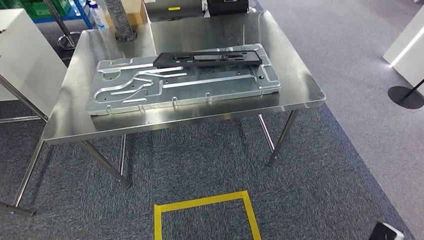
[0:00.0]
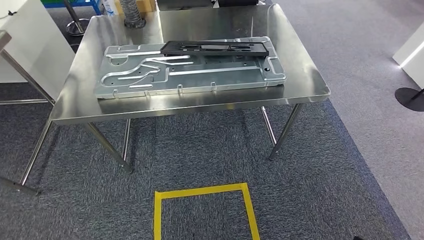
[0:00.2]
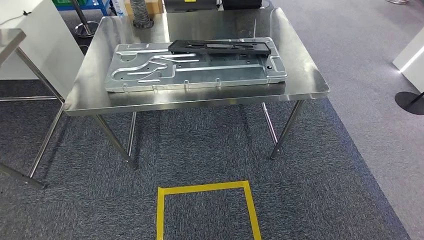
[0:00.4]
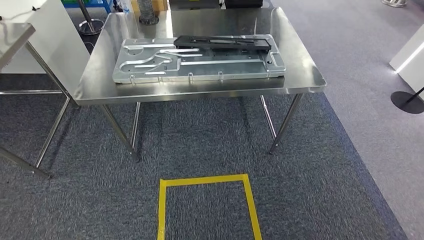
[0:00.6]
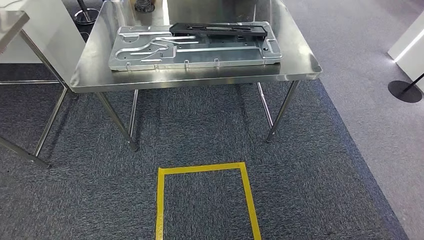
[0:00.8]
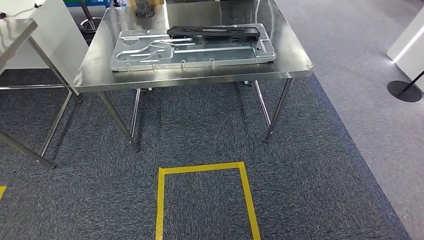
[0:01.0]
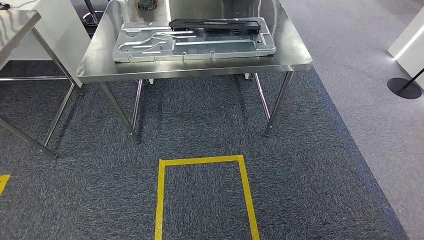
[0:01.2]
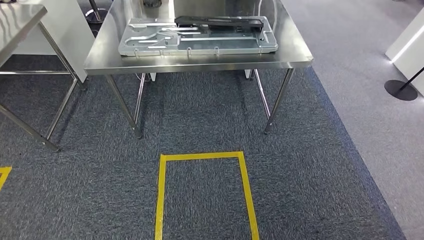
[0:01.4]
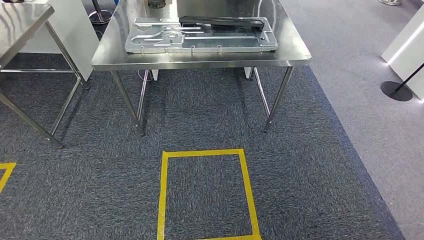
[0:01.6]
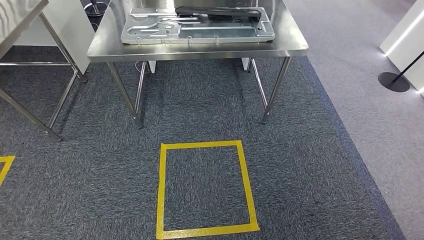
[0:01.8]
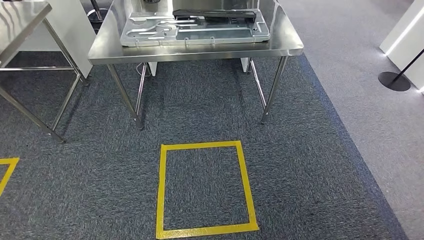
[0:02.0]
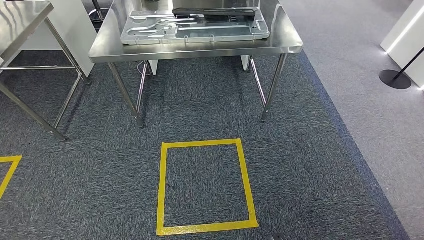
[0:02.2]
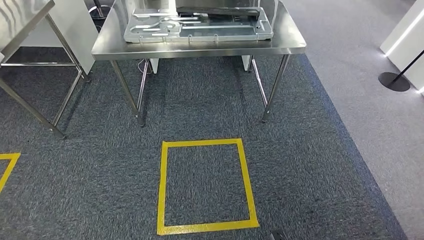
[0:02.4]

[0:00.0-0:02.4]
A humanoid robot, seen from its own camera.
Step, 0:00.0 to 0:02.4: Move to the initial position of the shelf.
